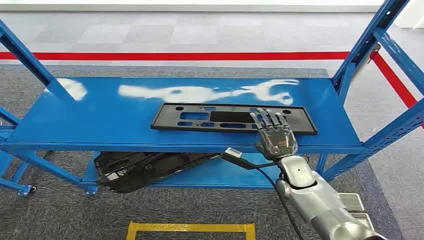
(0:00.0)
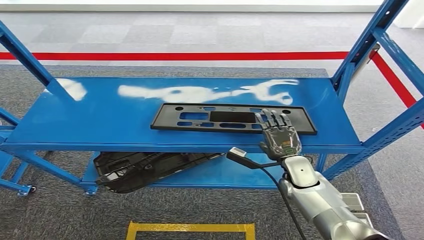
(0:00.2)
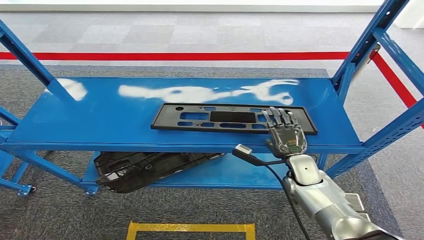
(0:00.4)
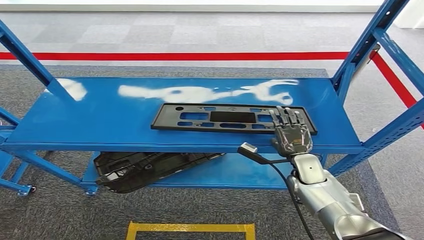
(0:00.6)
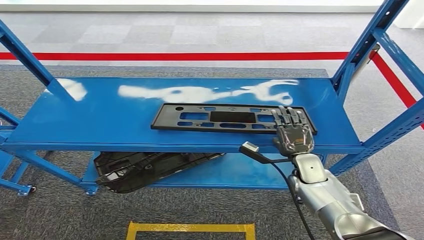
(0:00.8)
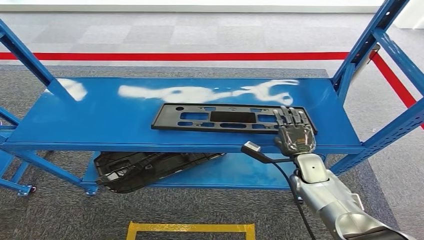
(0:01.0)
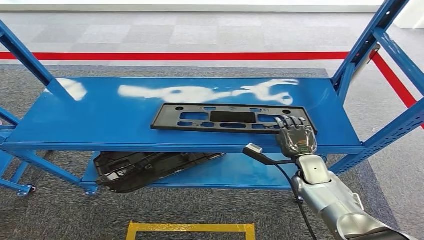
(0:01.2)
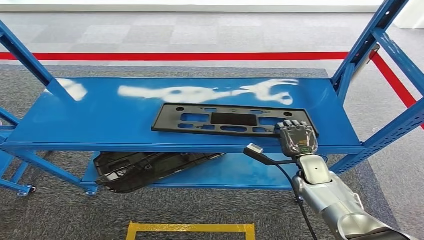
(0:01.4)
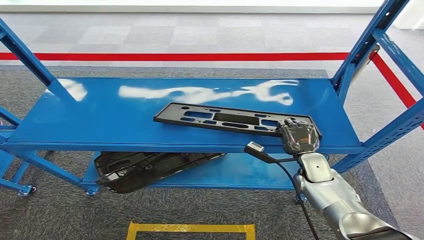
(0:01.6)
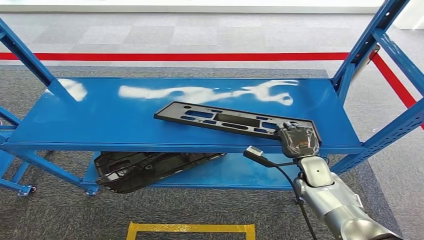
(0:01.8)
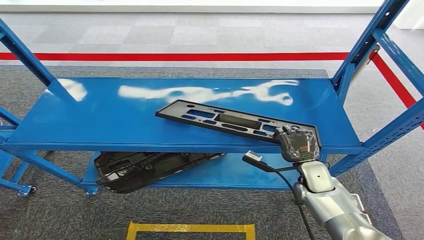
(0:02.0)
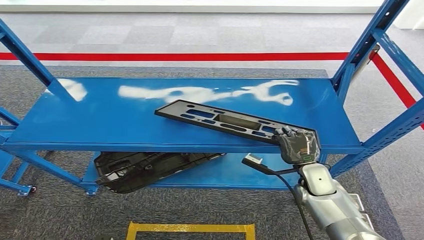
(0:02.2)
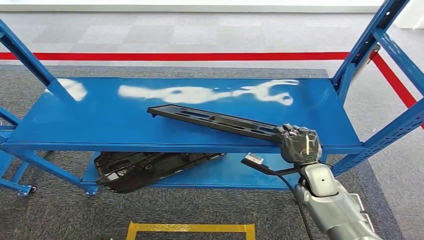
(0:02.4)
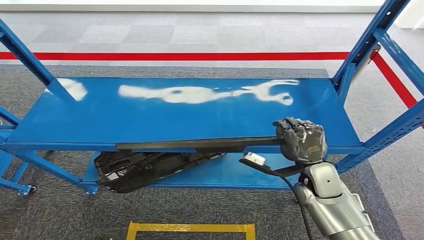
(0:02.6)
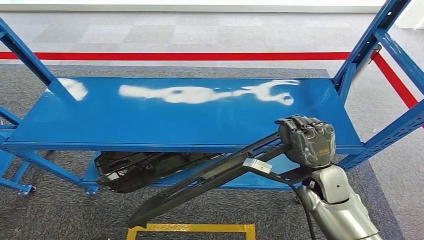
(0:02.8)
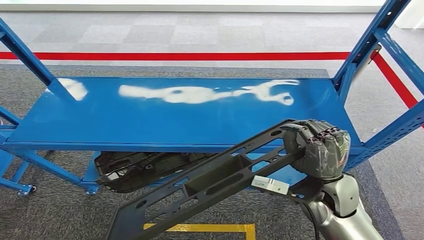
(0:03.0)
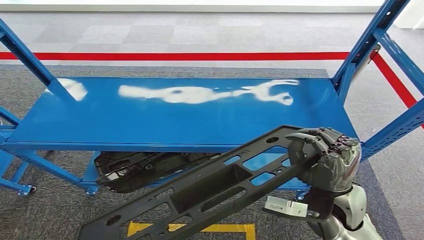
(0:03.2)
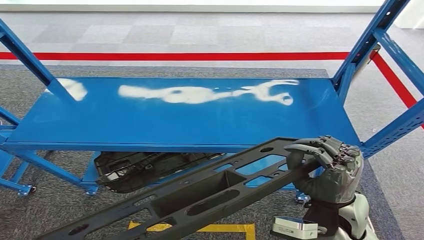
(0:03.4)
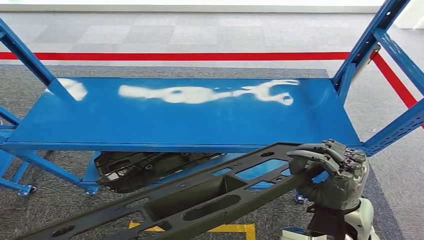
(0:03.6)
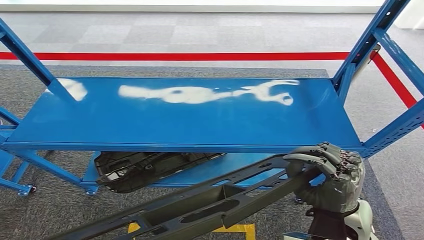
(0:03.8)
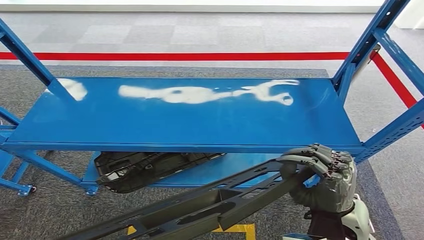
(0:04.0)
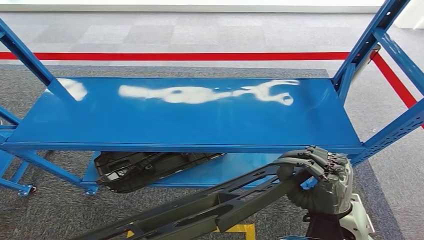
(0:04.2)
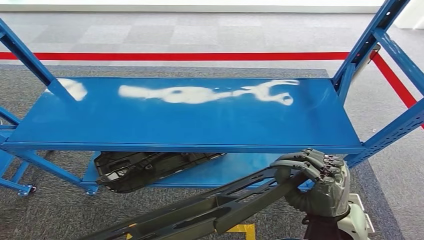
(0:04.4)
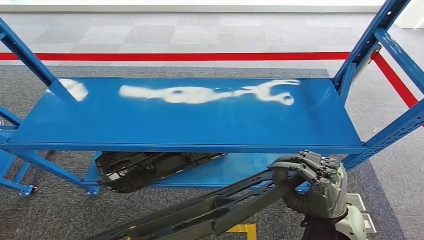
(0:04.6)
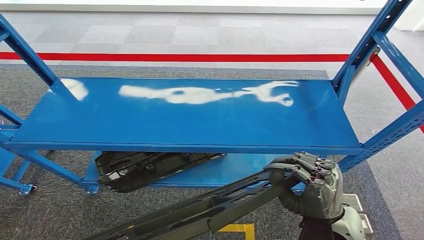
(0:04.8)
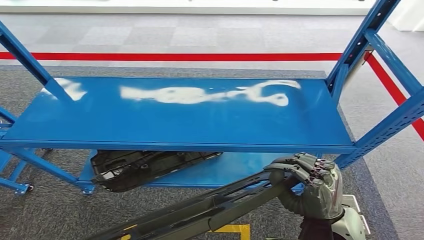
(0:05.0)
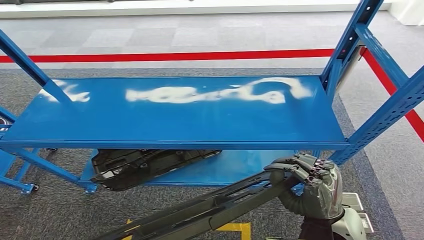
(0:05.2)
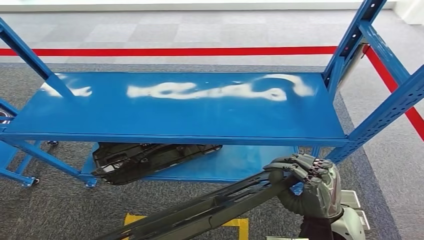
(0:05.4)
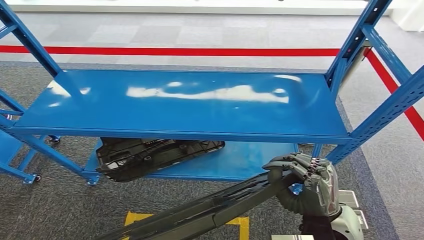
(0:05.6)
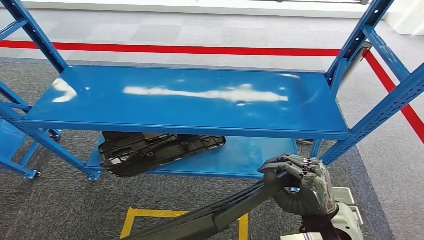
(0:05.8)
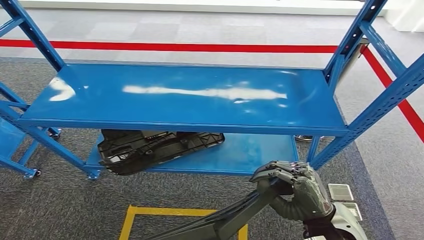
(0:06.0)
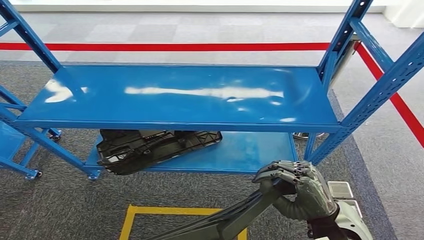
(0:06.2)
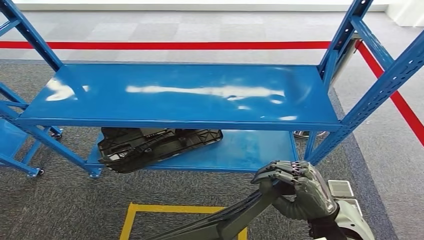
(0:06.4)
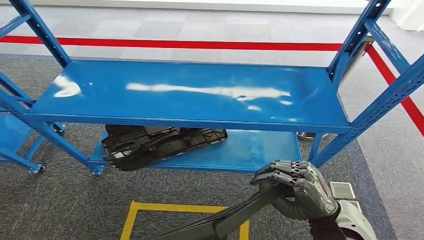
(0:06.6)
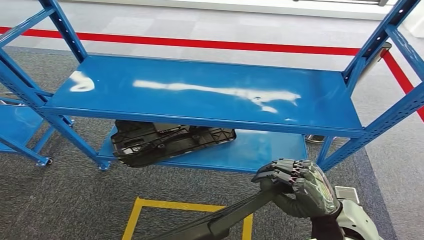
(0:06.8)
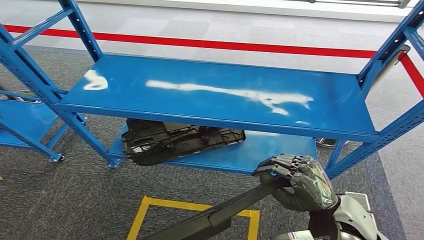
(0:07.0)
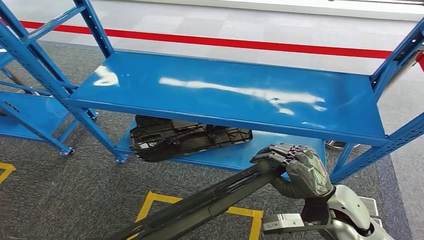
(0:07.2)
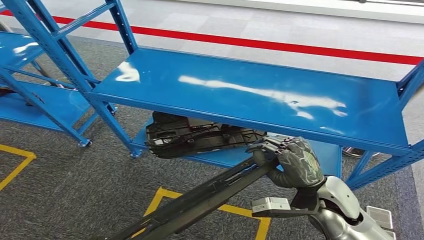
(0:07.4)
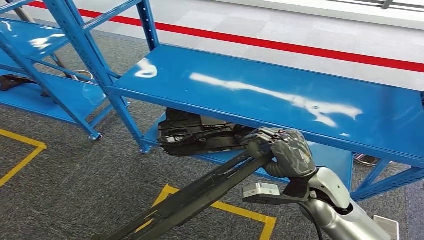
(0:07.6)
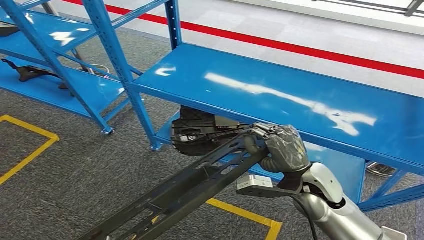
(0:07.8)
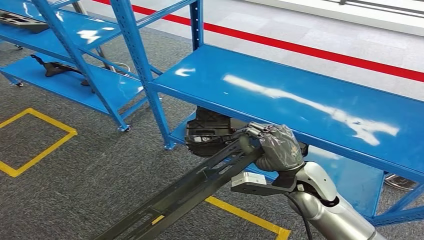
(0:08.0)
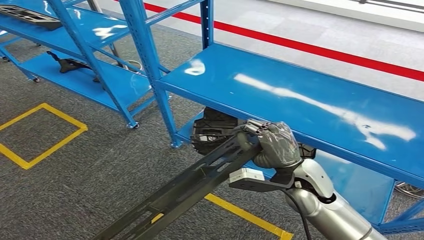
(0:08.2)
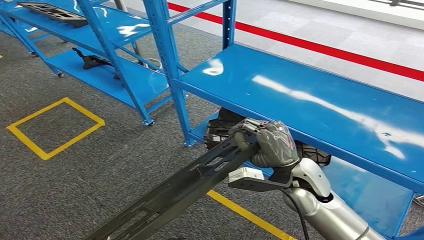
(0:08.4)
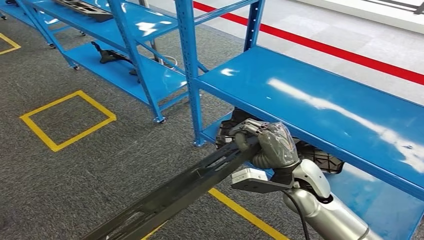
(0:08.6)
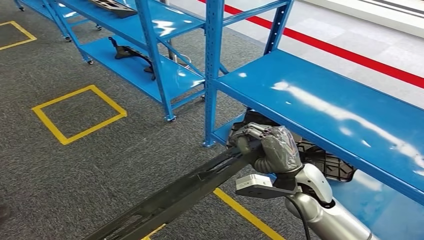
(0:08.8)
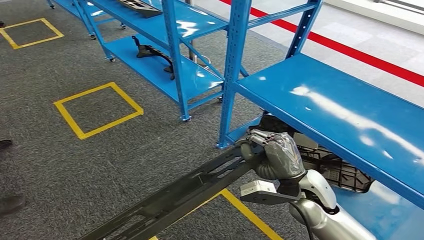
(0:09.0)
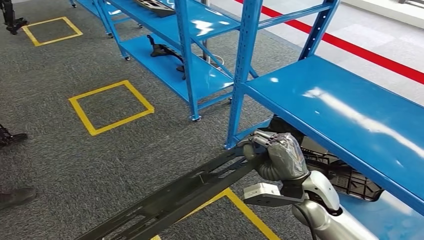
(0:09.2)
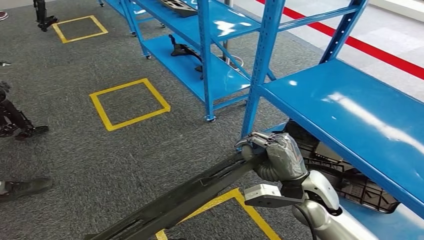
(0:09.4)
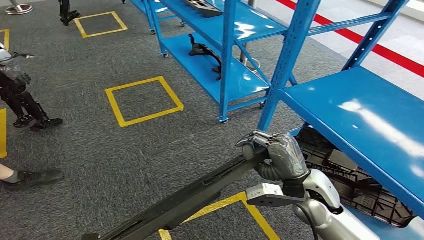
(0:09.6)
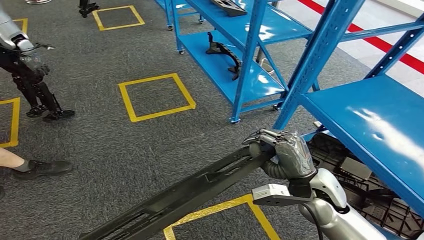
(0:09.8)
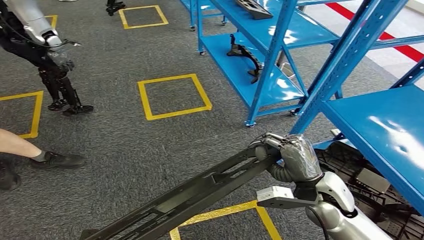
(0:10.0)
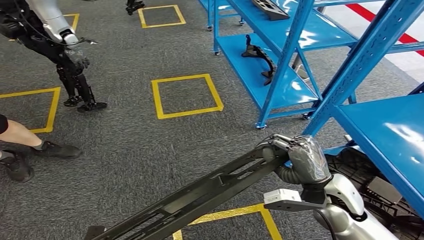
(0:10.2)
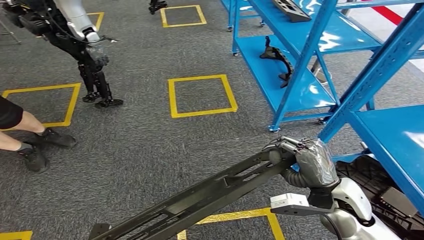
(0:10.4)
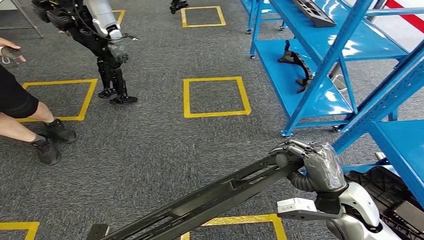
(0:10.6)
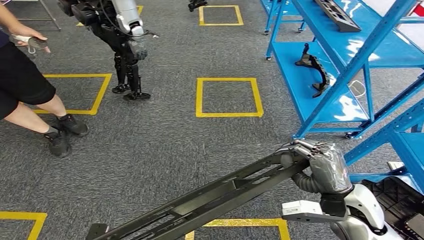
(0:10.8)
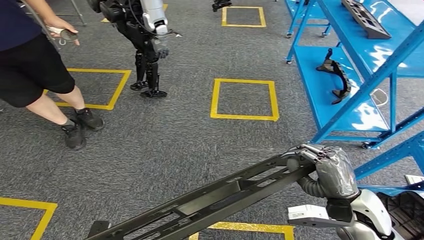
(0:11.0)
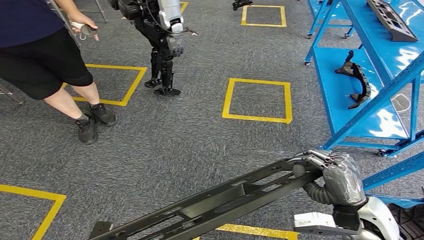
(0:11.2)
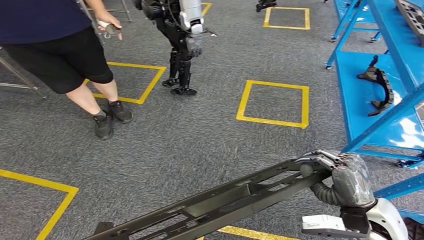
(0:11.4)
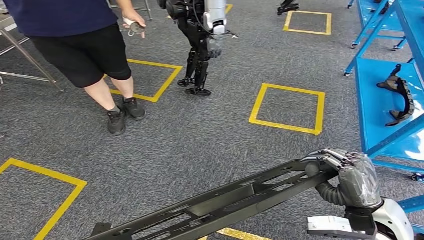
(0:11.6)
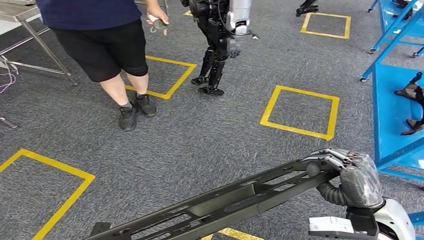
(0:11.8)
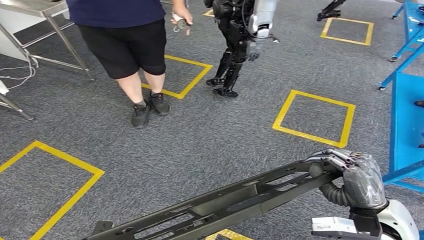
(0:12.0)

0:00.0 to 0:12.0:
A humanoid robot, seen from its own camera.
Step, 0:00.0 to 0:03.8: Pick up the large material from the shelf.
0:01.6 to 0:03.0: The right hand heads upward and backward, covering approximately 15 cm.
0:03.0 to 0:04.4: The right hand goes approximately 10 cm backward.

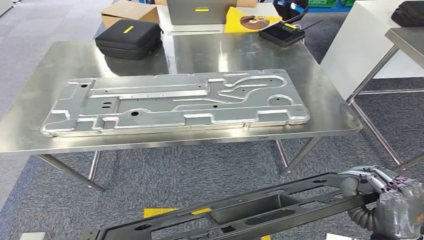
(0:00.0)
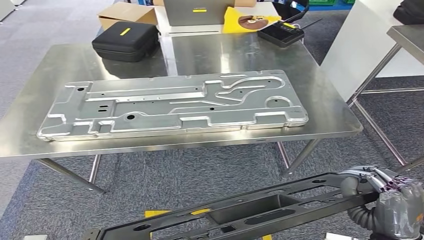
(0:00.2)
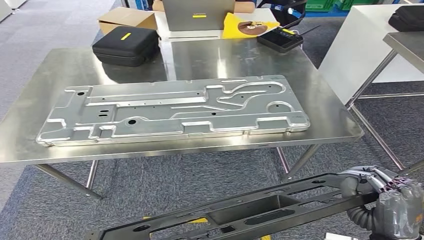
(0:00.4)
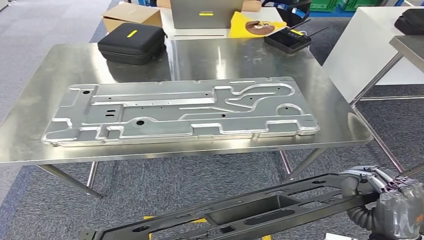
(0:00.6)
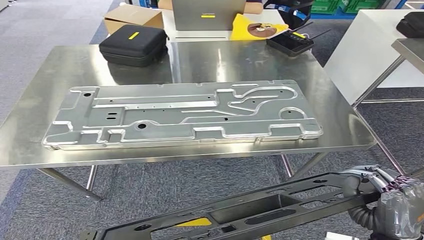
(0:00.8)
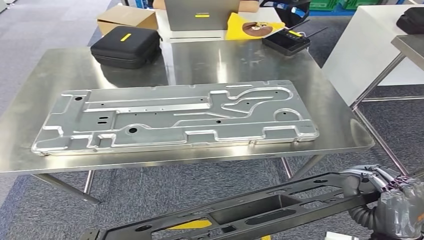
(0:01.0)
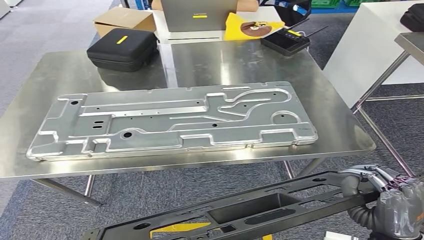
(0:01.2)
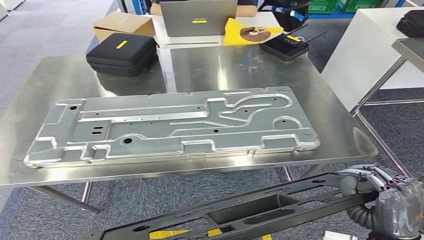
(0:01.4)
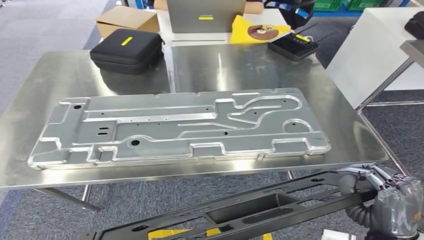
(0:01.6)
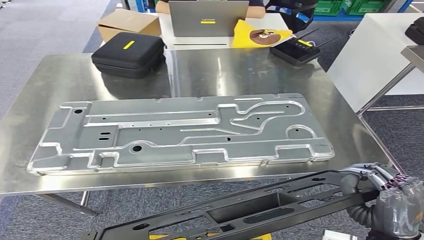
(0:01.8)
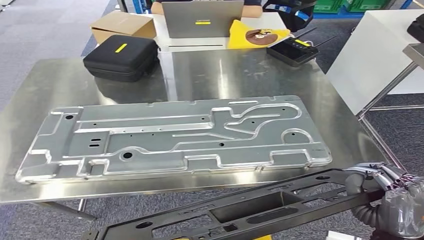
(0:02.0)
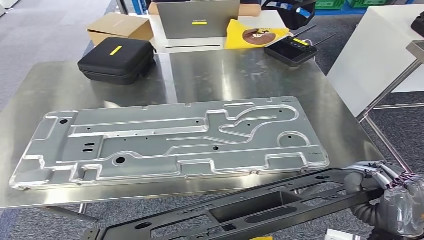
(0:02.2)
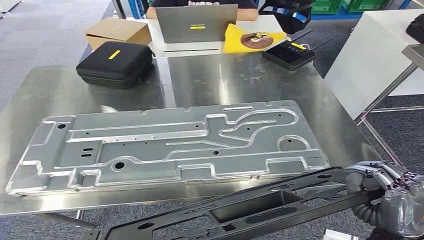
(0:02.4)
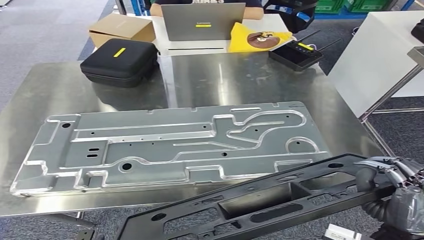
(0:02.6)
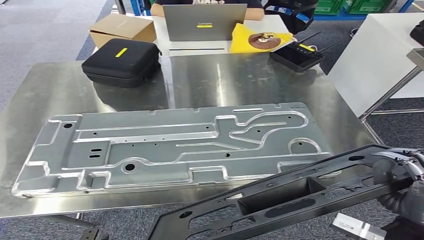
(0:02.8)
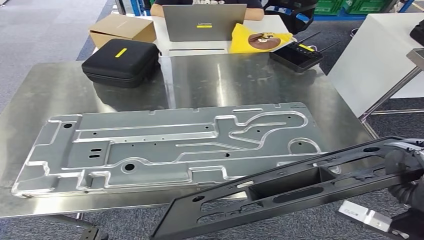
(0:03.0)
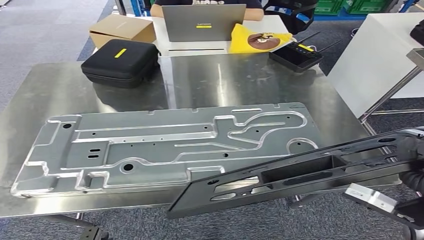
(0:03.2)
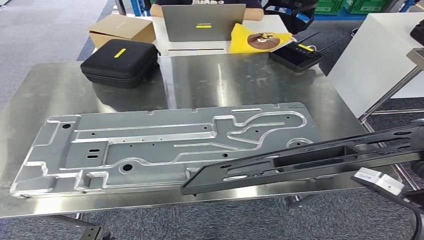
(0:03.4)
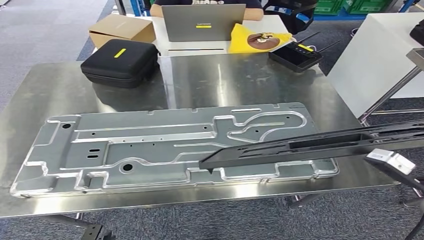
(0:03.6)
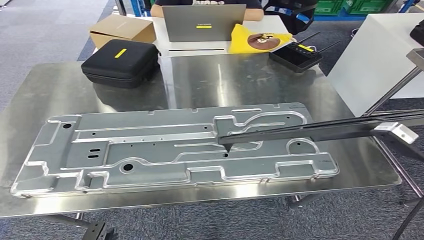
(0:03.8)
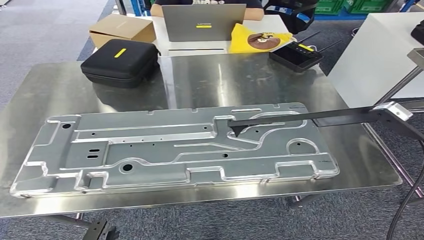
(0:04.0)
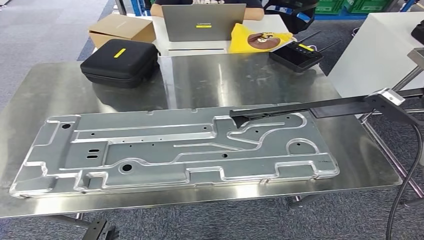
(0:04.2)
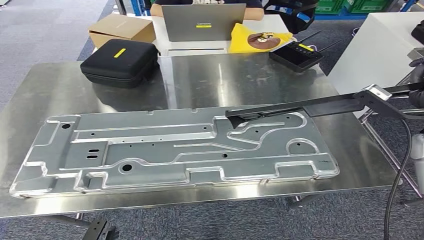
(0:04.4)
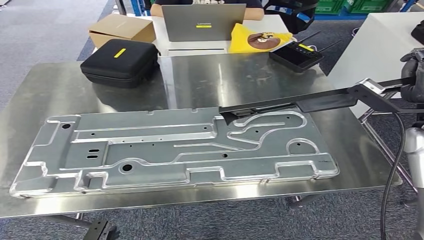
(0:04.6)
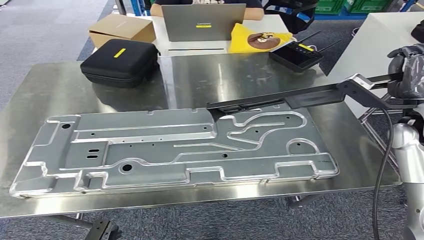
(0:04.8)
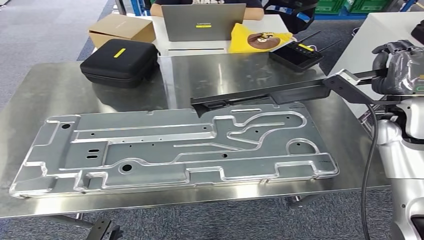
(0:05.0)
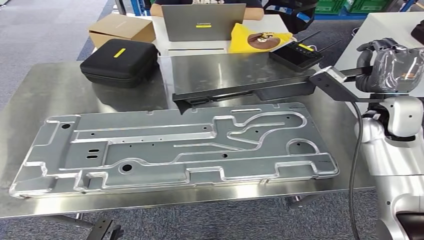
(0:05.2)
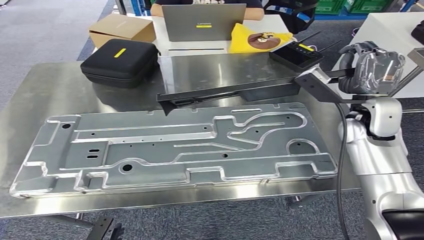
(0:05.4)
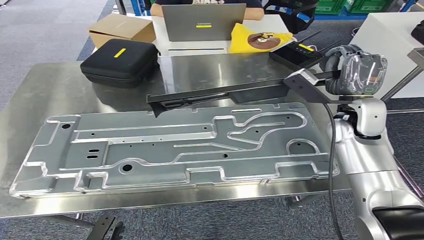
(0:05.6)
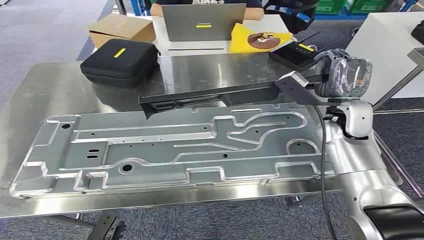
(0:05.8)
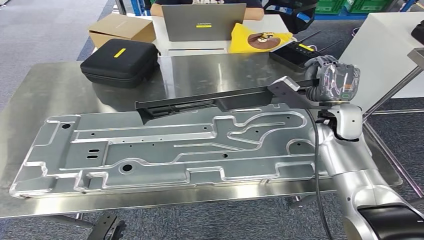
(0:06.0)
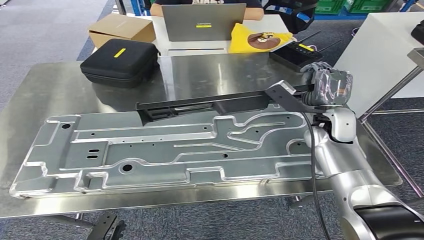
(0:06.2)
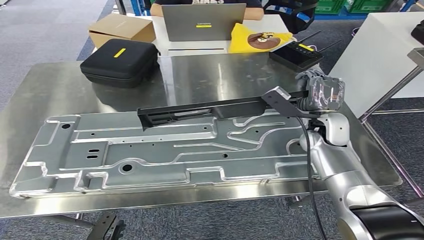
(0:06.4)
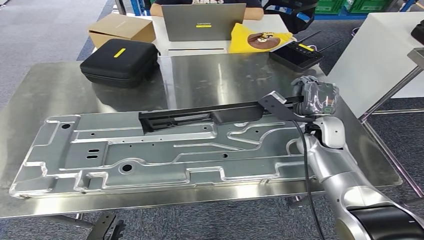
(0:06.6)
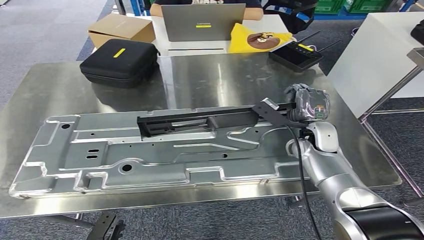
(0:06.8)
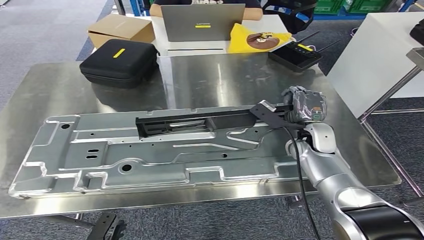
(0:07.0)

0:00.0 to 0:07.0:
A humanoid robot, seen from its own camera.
Step, 0:00.0 to 0:02.6: Move the large material to the workbench.
0:02.8 to 0:04.2: The right hand goes about 20 cm forward, to the right and upward.
0:04.2 to 0:05.6: The right hand shifts approximately 15 cm to the left and forward.
